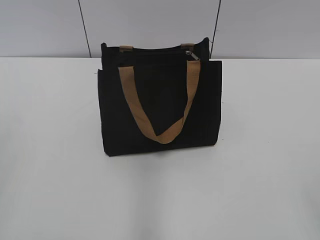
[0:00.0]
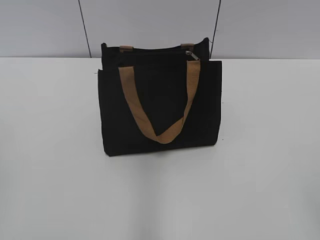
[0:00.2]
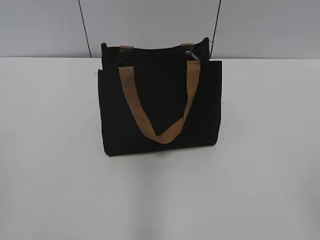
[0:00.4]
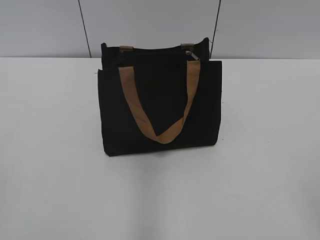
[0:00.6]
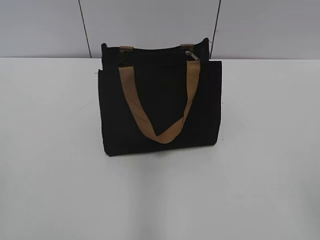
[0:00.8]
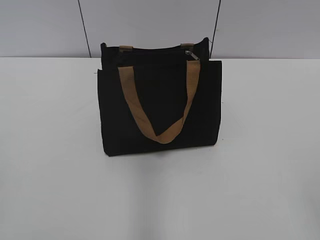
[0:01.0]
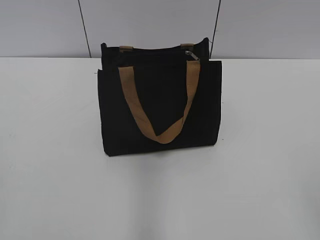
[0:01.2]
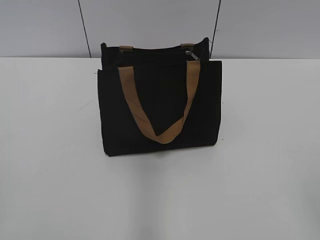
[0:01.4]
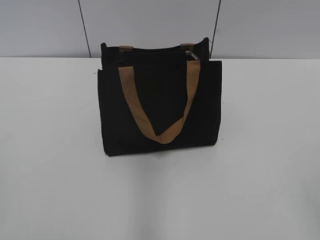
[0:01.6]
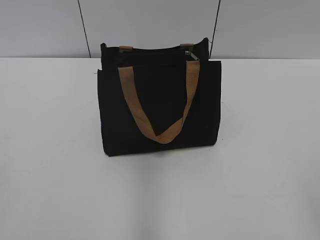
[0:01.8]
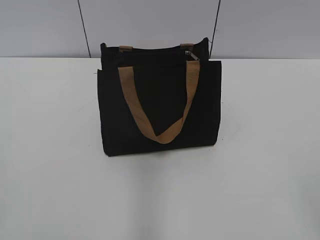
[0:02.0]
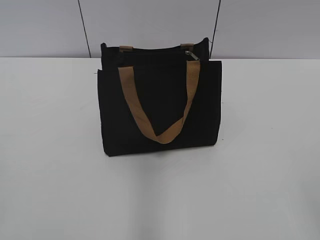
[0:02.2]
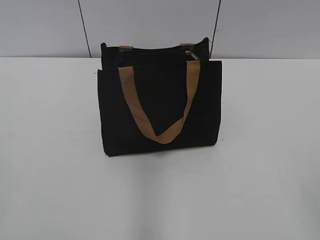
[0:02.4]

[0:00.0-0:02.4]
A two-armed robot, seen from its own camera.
0:01.2 to 0:02.4: Both grippers stay put.

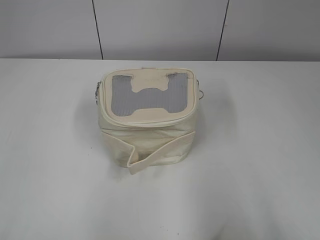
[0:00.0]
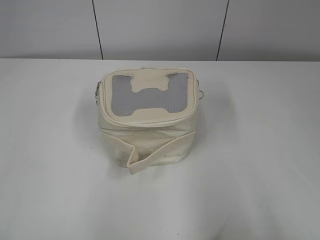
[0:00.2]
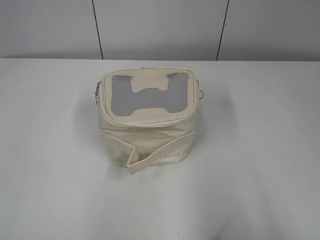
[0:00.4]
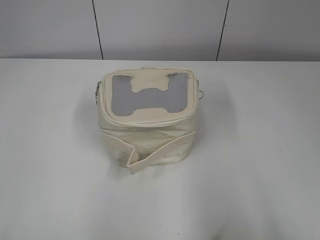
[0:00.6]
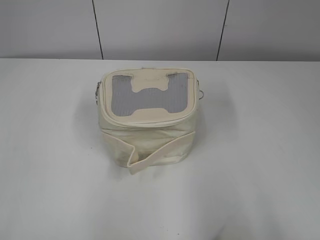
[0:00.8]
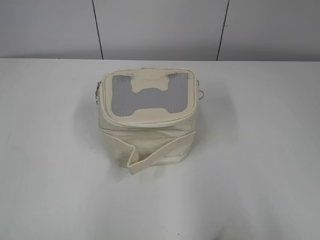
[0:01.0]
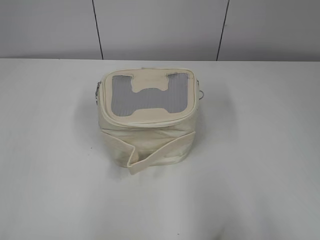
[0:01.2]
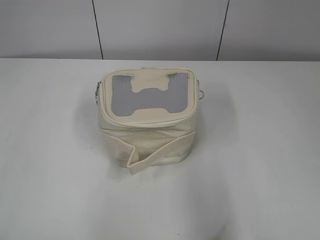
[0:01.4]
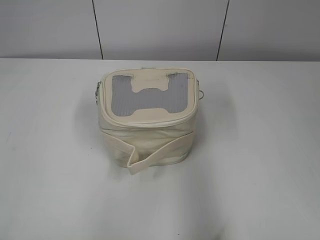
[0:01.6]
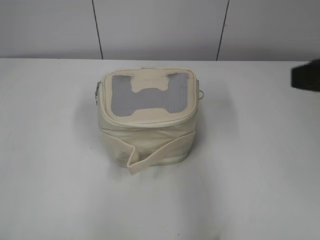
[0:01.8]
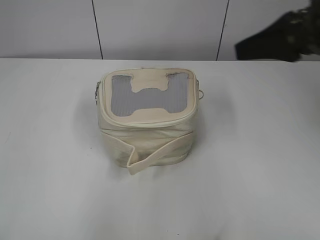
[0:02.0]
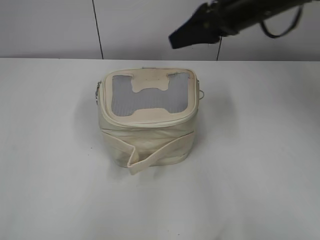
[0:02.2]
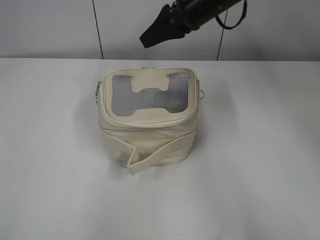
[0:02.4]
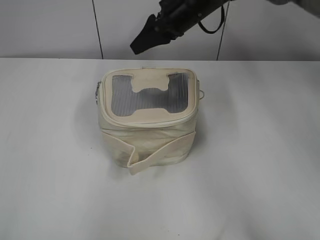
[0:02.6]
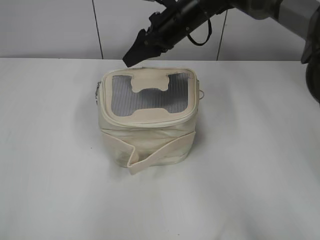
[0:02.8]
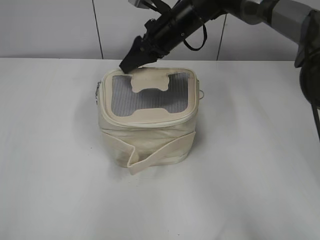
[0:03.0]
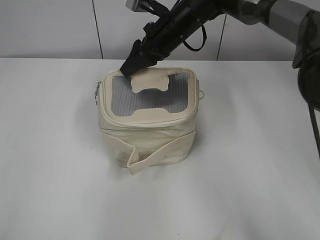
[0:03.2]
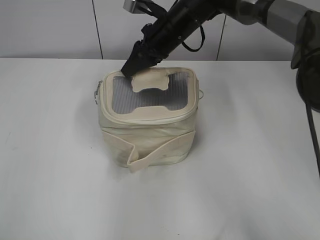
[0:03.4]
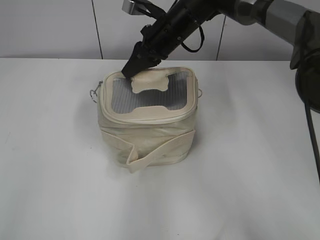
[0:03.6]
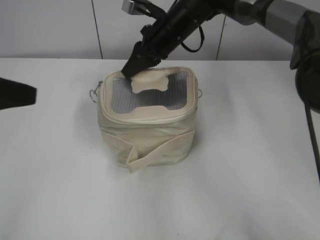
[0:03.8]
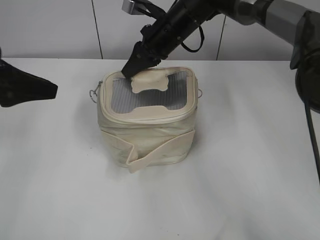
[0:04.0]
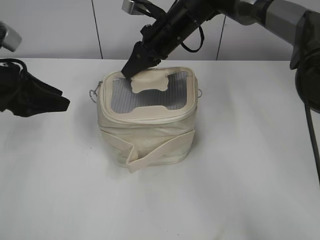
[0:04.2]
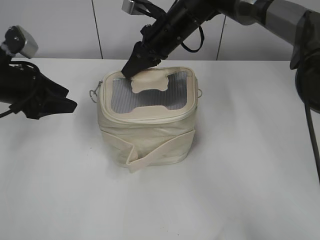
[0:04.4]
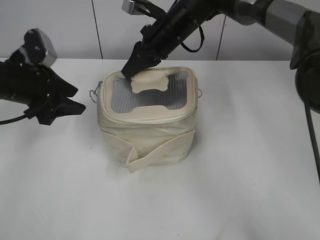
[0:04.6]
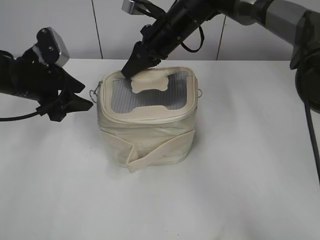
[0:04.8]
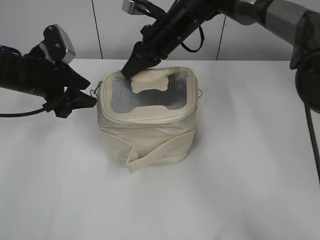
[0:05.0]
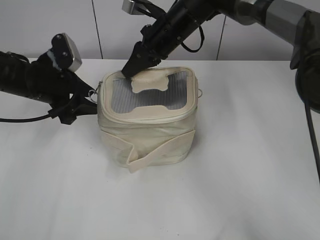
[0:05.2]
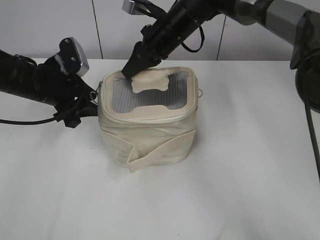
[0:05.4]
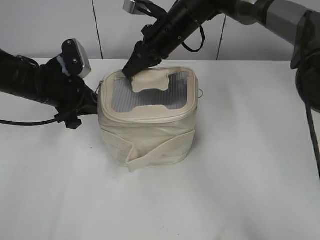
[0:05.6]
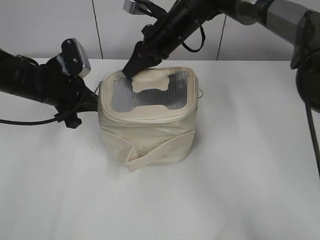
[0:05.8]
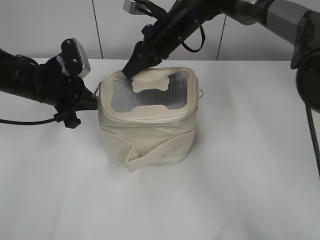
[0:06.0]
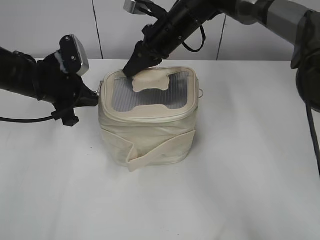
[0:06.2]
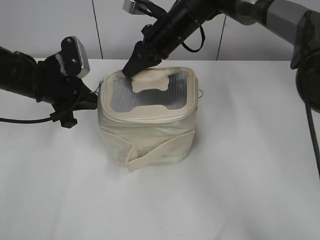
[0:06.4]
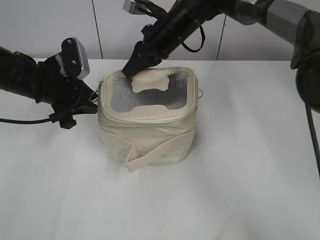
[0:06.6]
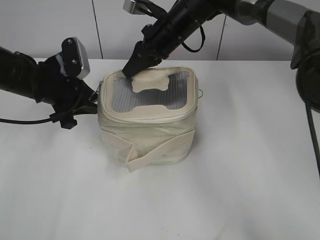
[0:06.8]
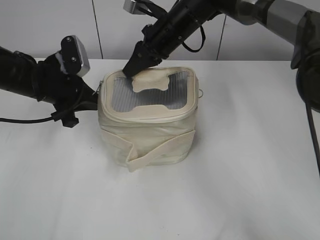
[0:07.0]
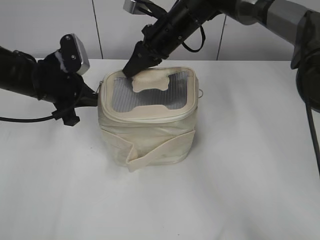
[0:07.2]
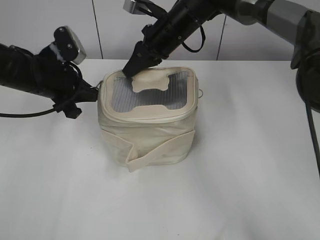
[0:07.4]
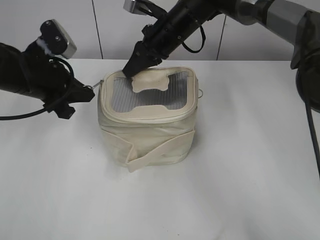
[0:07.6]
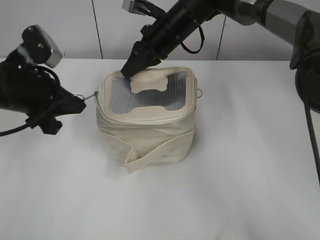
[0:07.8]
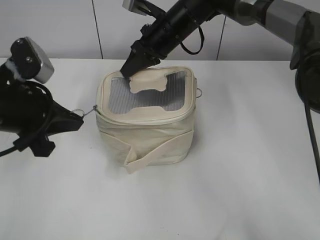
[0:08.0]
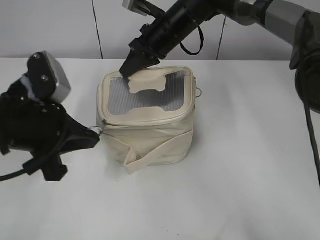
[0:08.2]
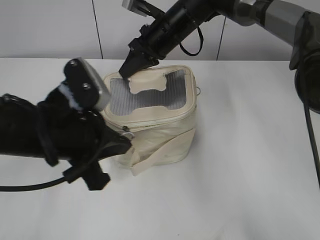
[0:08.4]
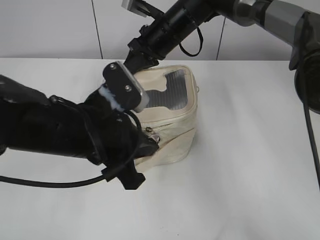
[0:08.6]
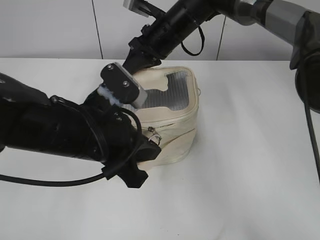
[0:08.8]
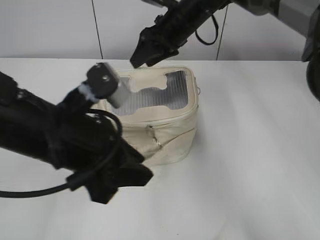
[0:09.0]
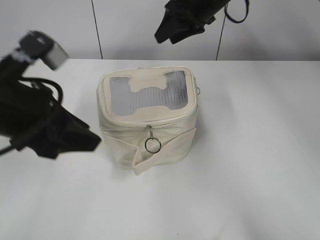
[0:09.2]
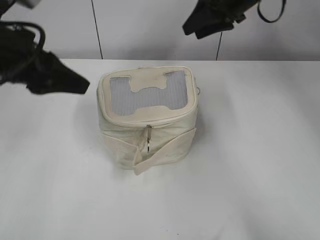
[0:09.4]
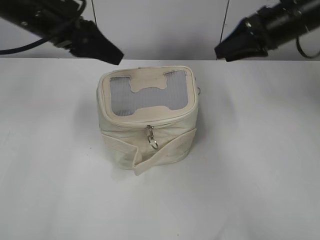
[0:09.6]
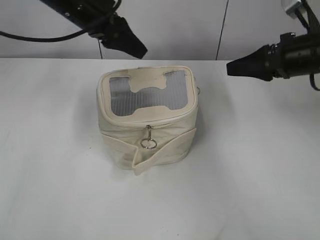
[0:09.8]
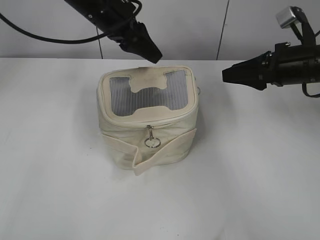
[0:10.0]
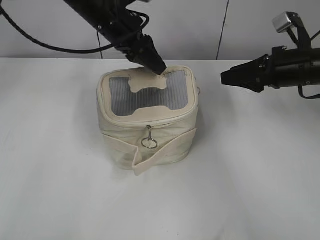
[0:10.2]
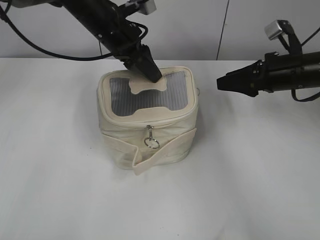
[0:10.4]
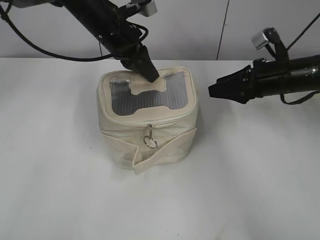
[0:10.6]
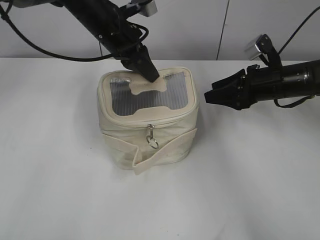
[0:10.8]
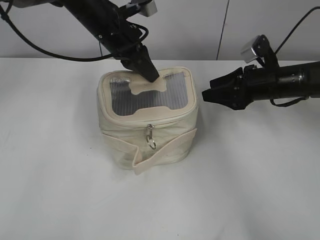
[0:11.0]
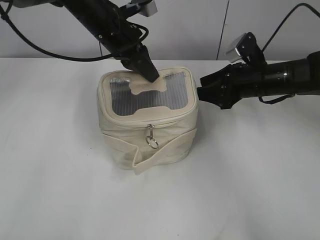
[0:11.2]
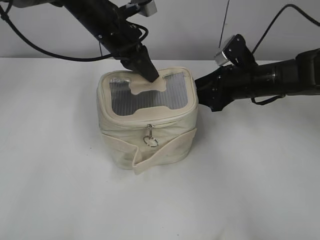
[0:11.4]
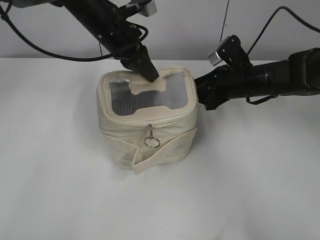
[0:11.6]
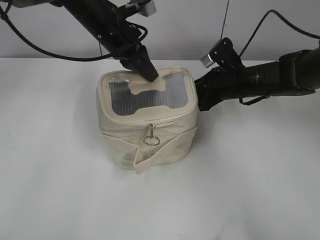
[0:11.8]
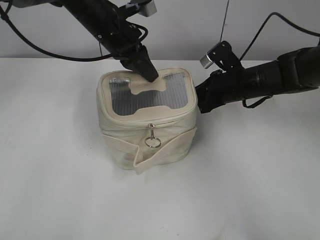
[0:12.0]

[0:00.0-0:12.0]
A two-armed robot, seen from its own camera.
Step, 0:00.0 to 0:08.8: Zip up the bag with your left hand.
0:01.6 to 0:03.0: The right gripper shifts some 50 cm forward and to the left.
0:03.0 to 0:04.4: The right gripper closes its fingers; the left gripper is displaced forward by some 30 cm, and opens up.
0:04.4 to 0:06.0: The left gripper goes approximately 5 cm to the right, and closes up.
0:06.0 to 0:07.6: The left gripper opens and closes again.
0:07.6 to 0:09.0: The left gripper goes about 15 cm backward and to the right, and opens, while the right gripper opens up.
0:09.0 to 0:10.4: The left gripper moves forward, about 25 cm, and opens up. The right gripper heads to the right and backward, covering about 25 cm.
0:10.4 to 0:12.0: The right gripper moves to the left and downward, some 10 cm, and closes up, while the left gripper closes its fingers.

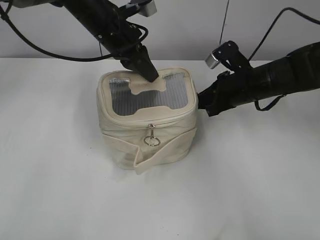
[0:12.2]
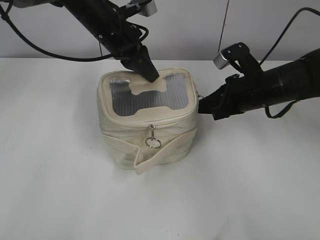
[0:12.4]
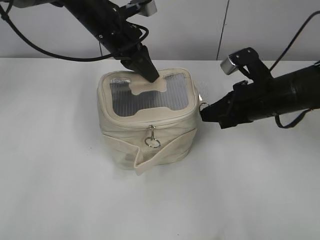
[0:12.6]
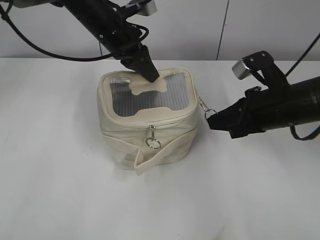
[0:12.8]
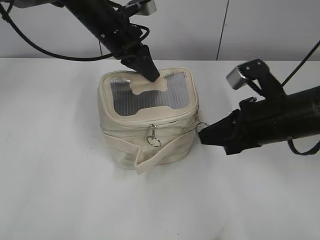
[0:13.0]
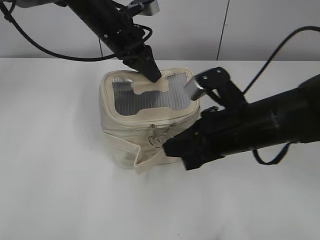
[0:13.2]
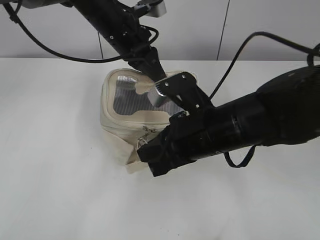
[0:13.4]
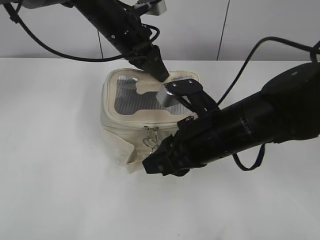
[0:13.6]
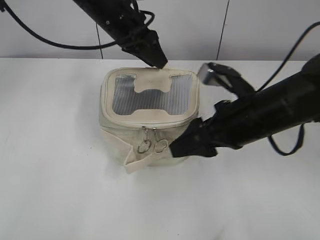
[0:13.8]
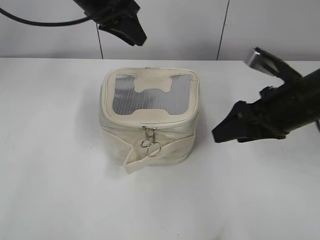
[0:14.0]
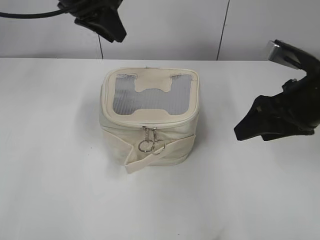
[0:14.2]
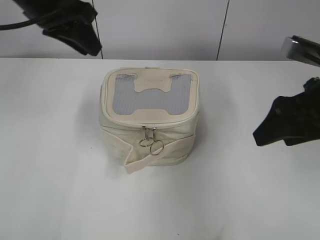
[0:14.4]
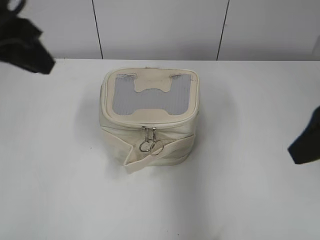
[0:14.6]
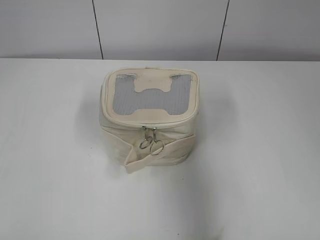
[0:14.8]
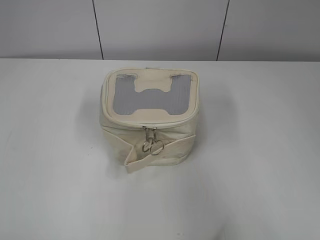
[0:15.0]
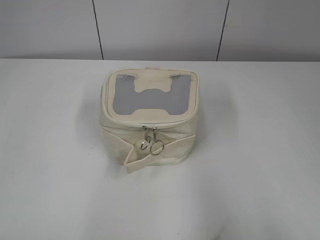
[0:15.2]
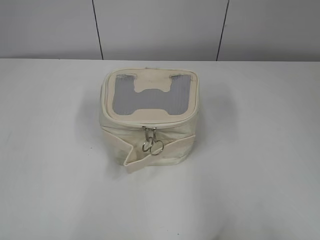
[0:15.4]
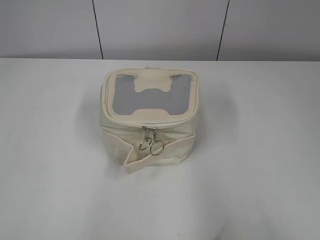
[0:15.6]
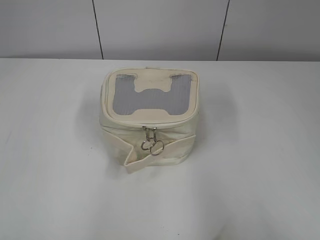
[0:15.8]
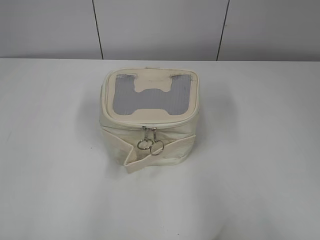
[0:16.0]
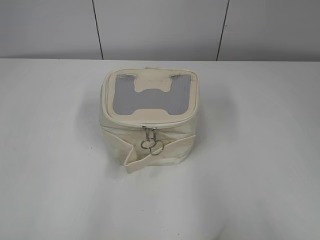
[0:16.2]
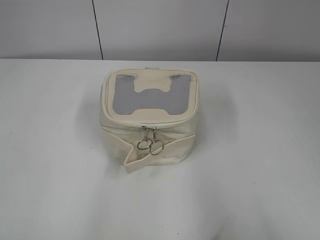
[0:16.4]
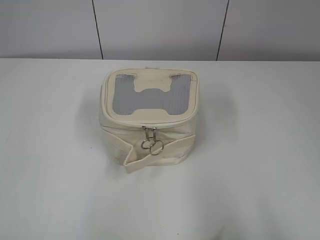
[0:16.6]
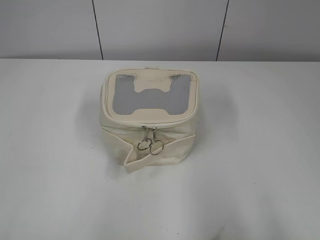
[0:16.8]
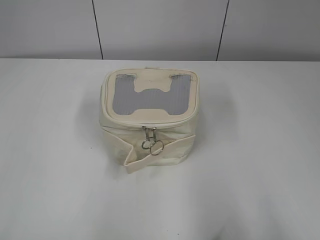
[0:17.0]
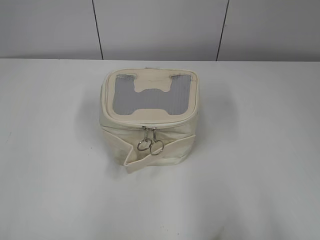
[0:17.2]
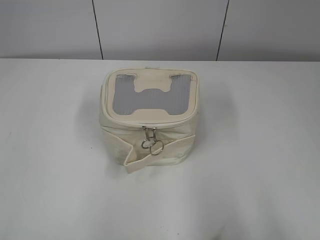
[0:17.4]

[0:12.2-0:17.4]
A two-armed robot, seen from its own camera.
0:12.2 to 0:14.0: The right gripper heads backward and upward, covering some 15 cm, and opens its fingers; the left gripper shifts approximately 5 cm upward, and opens.
0:14.0 to 0:15.6: The left gripper goes roughly 50 cm backward and to the left, while the right gripper goes approximately 30 cm backward and to the right.
